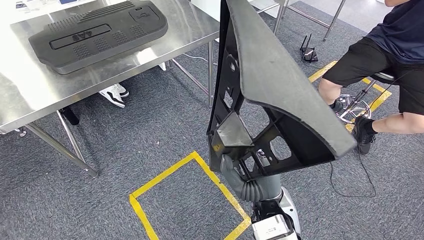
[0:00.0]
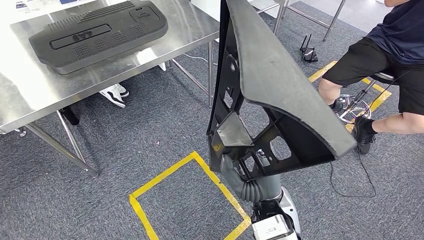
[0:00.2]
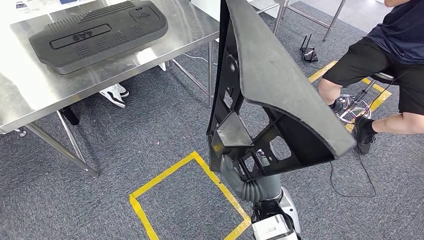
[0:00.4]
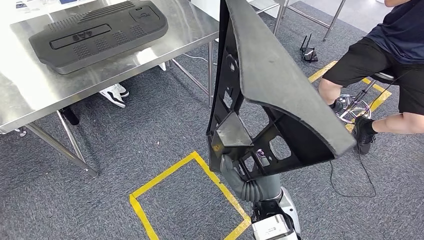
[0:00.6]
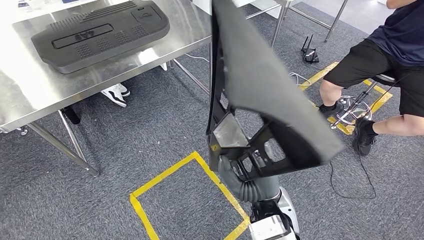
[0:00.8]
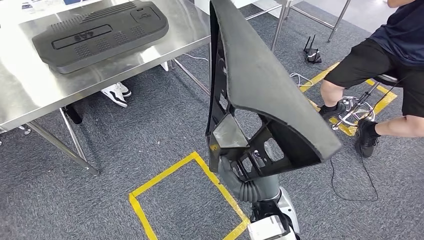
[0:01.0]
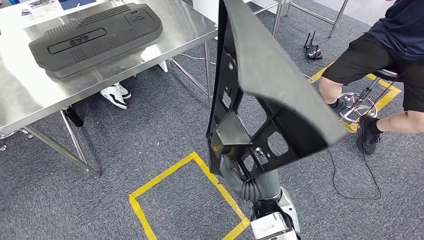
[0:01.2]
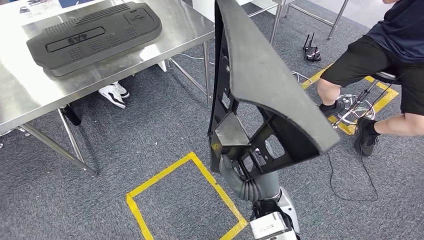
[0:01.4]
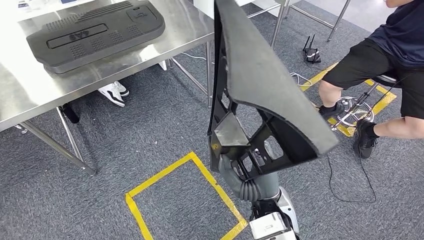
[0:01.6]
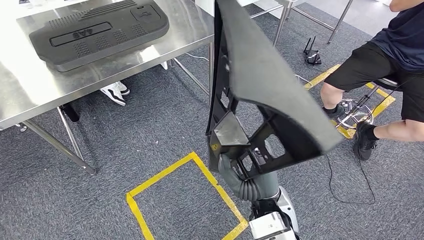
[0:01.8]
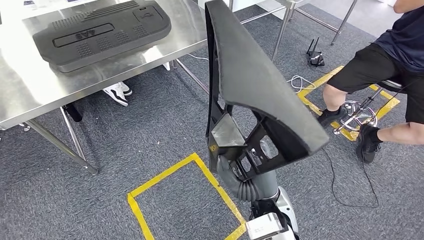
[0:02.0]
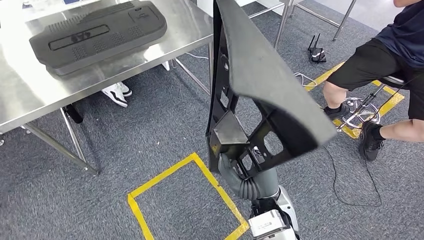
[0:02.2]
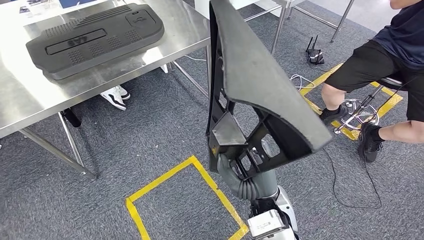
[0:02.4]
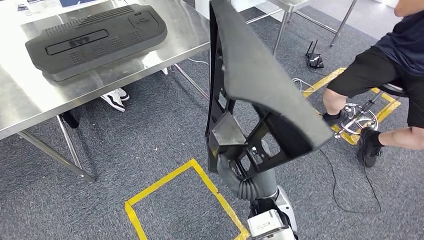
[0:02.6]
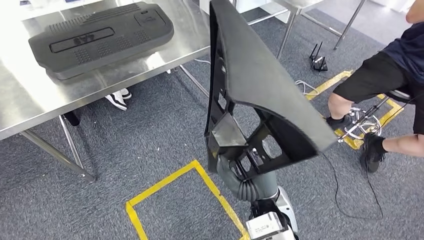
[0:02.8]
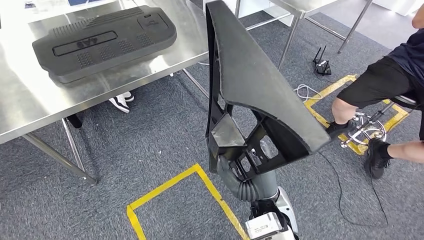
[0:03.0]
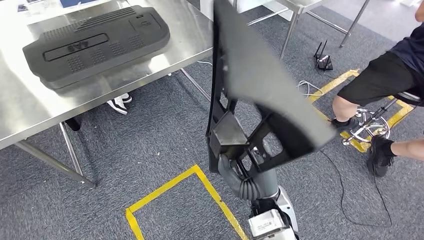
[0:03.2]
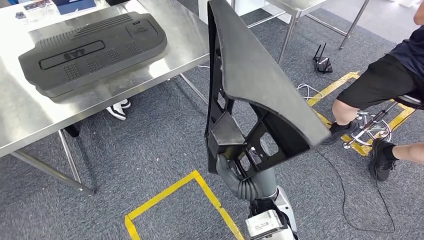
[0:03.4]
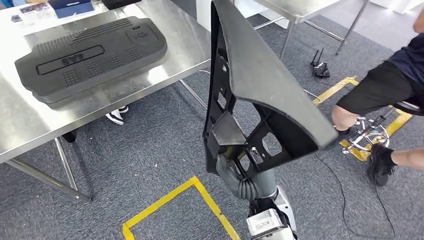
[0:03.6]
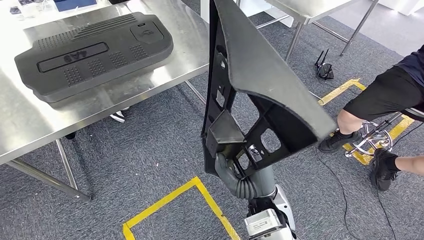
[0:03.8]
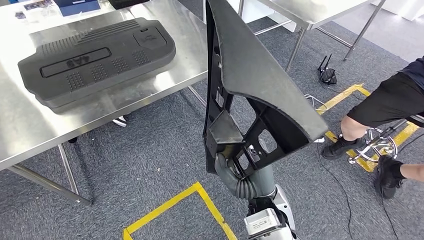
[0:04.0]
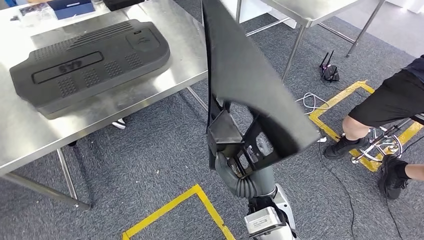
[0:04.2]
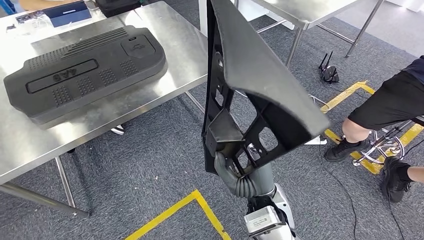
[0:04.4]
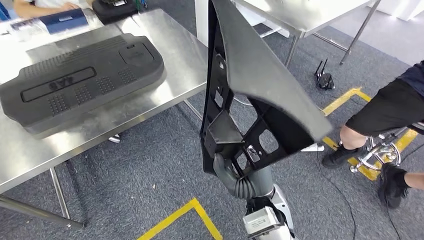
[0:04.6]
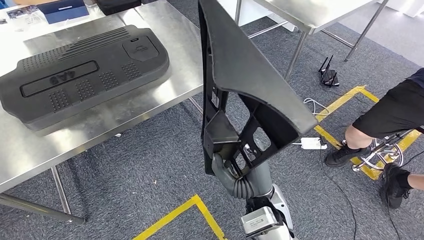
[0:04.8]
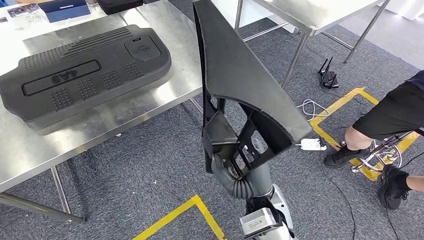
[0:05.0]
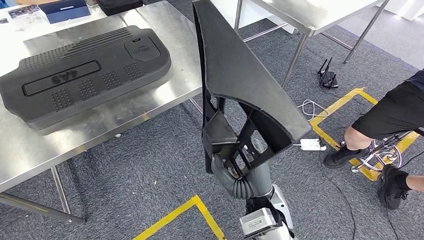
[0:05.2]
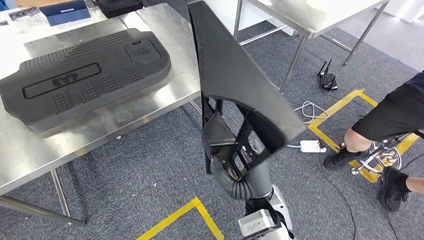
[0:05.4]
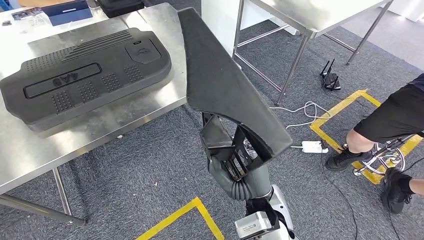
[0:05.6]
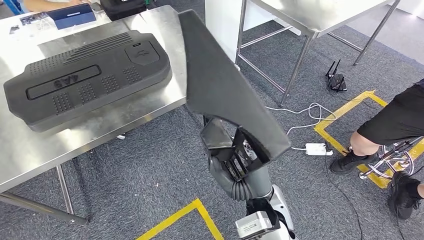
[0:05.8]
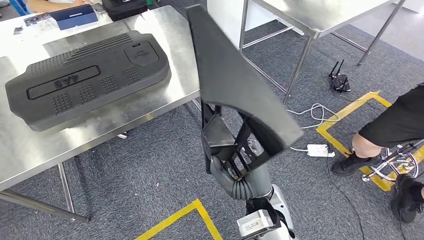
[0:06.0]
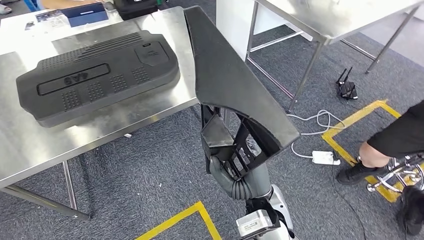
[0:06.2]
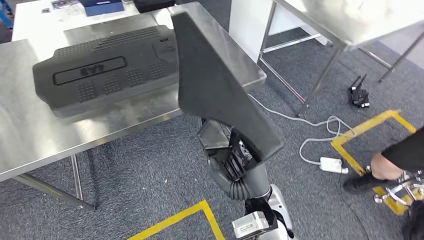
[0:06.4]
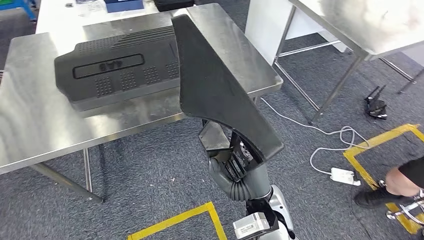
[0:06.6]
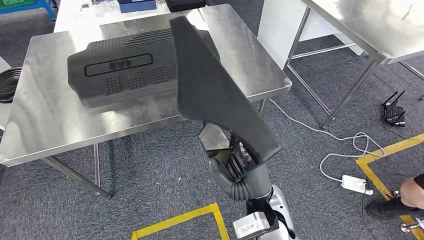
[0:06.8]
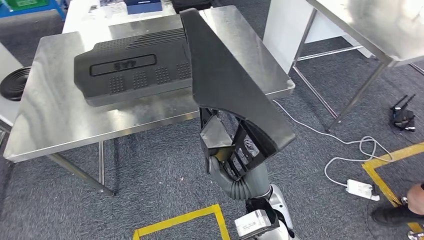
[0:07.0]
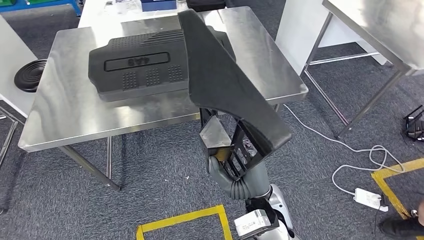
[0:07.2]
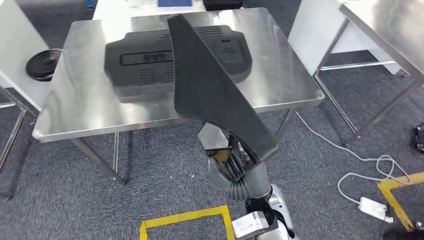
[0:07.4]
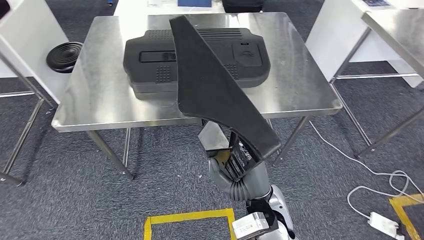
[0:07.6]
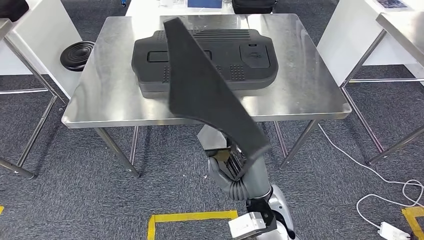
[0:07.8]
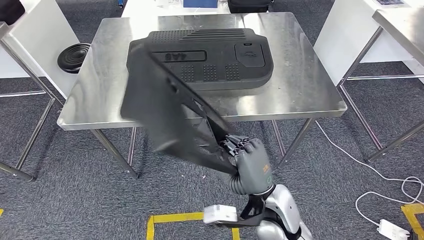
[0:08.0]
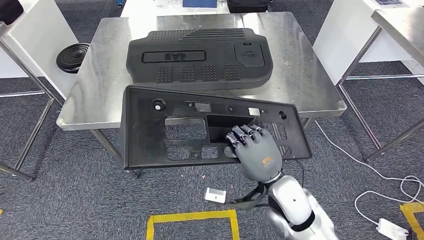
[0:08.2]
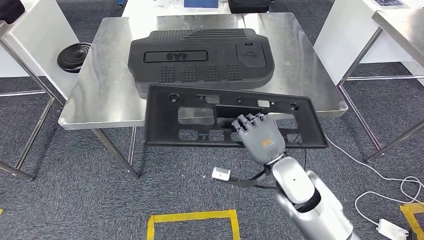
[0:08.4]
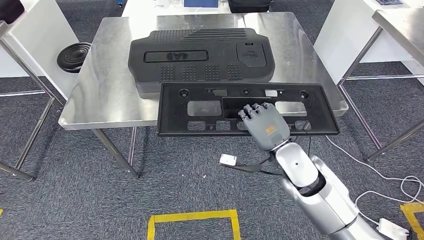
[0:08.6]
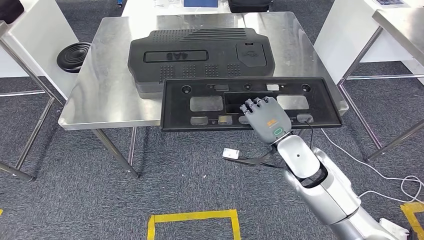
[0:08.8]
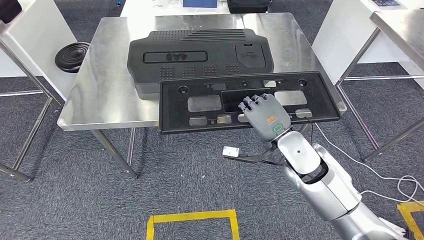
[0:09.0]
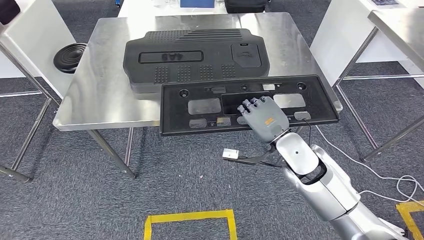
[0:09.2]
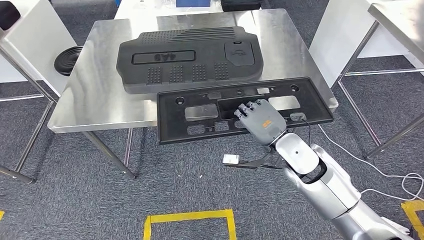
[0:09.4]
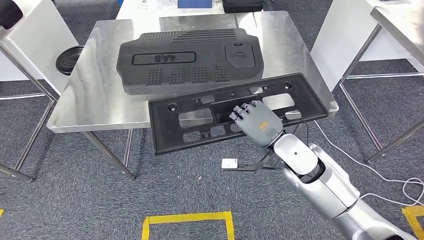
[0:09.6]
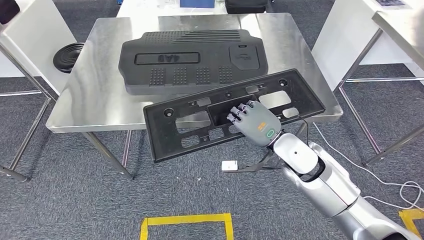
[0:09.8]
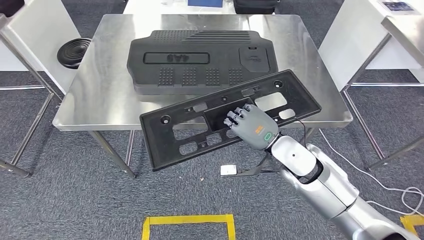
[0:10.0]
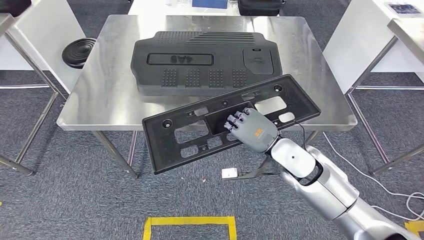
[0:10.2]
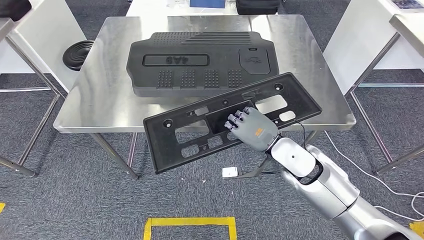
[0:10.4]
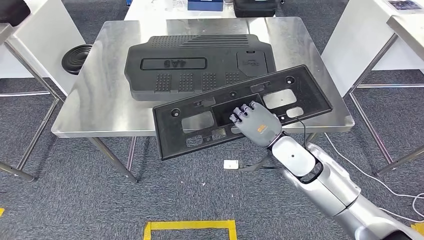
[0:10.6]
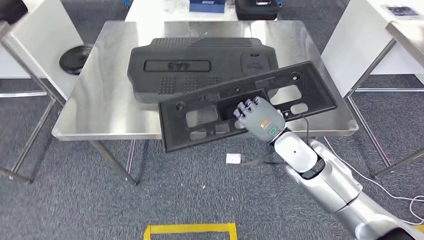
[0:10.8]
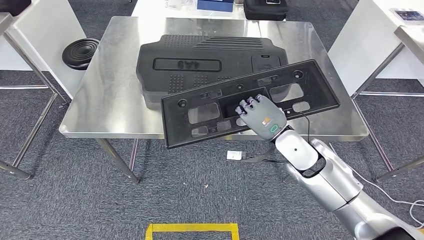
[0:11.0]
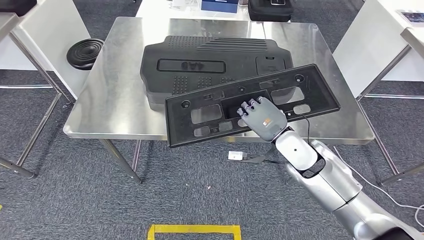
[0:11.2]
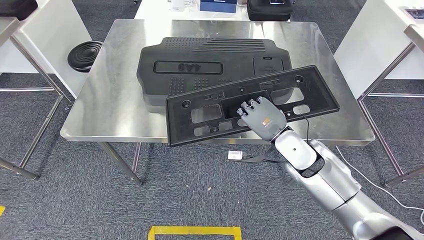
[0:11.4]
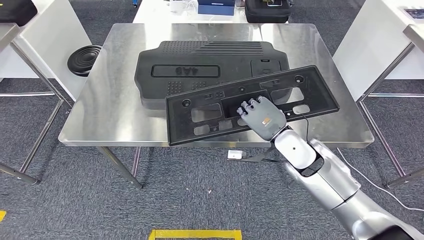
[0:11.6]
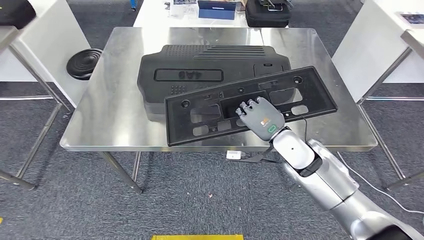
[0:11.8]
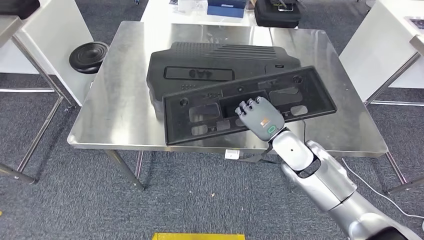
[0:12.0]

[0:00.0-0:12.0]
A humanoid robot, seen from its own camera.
0:00.0 to 0:01.6: Both hands stay put.

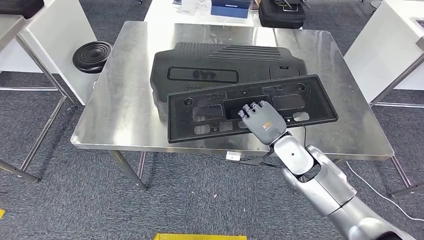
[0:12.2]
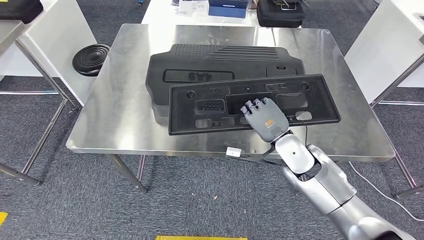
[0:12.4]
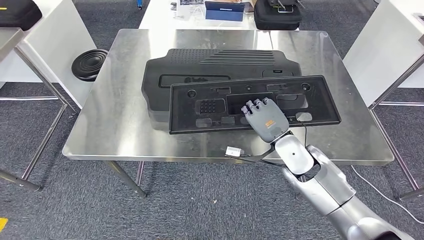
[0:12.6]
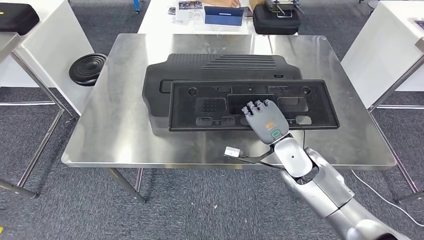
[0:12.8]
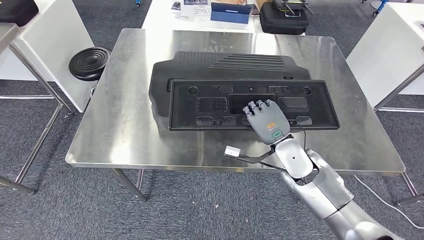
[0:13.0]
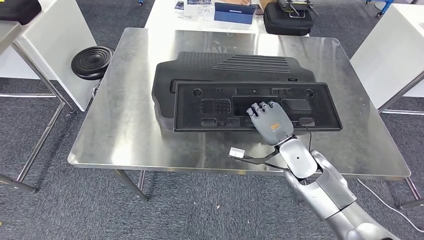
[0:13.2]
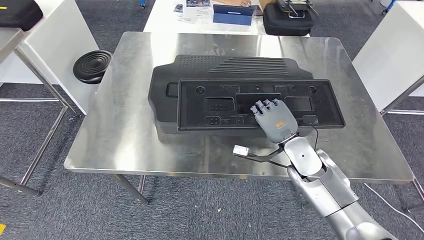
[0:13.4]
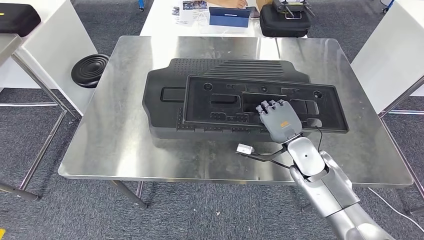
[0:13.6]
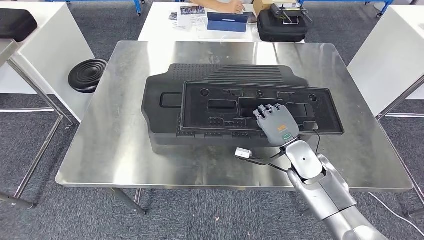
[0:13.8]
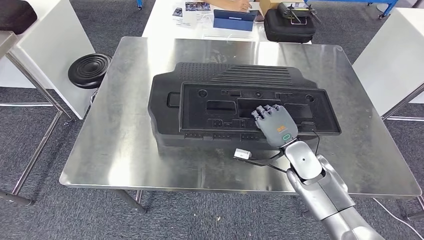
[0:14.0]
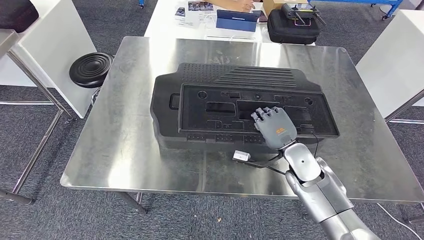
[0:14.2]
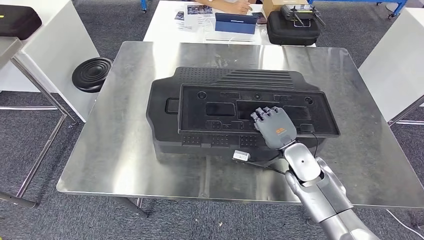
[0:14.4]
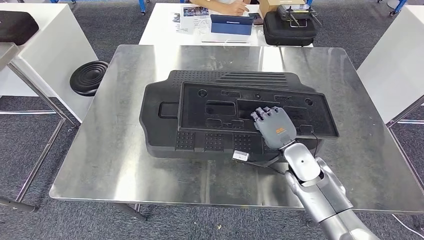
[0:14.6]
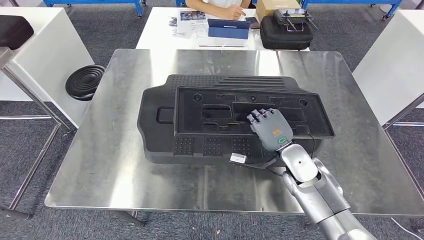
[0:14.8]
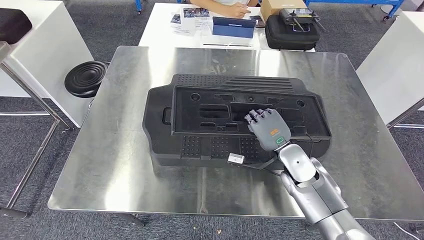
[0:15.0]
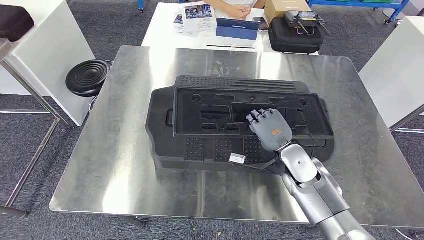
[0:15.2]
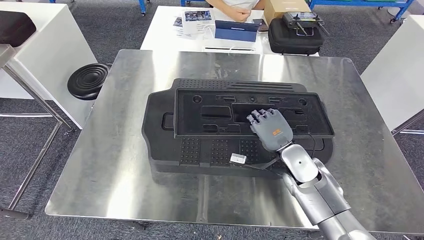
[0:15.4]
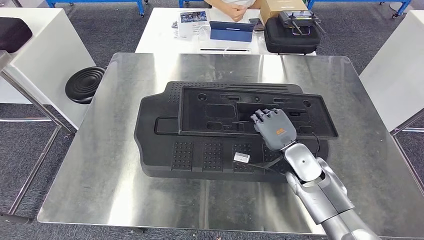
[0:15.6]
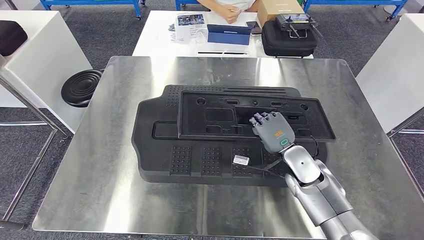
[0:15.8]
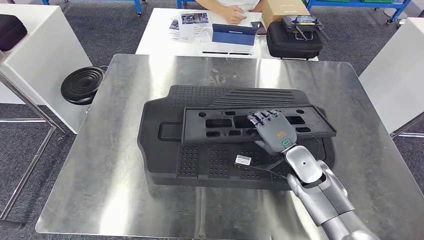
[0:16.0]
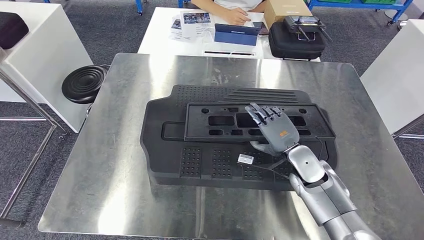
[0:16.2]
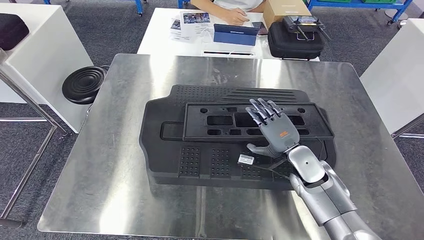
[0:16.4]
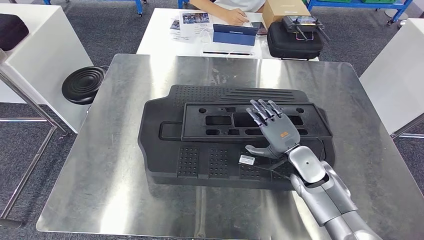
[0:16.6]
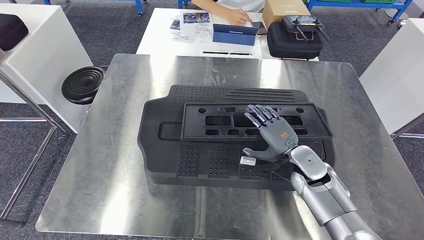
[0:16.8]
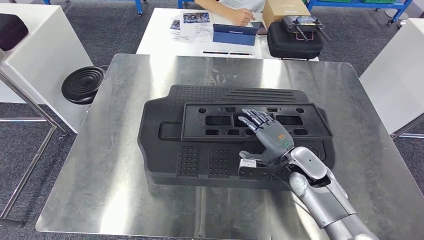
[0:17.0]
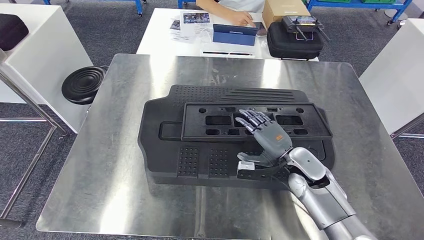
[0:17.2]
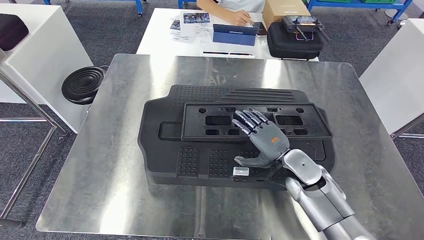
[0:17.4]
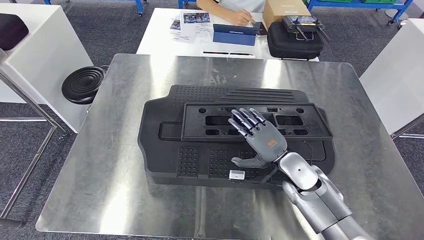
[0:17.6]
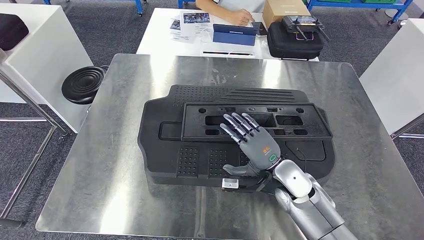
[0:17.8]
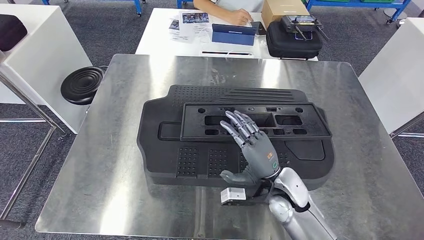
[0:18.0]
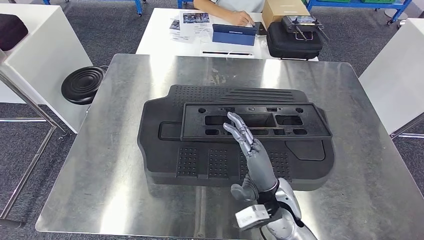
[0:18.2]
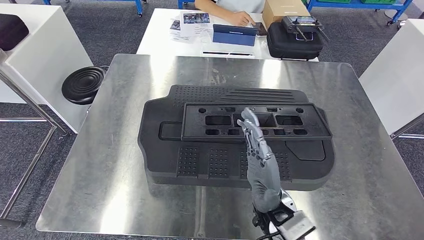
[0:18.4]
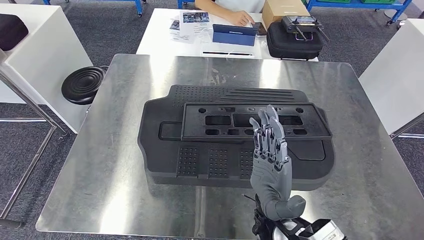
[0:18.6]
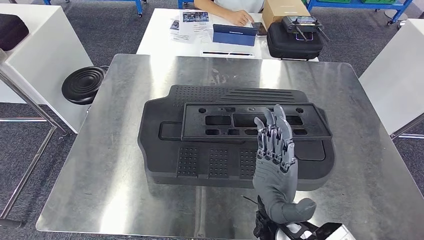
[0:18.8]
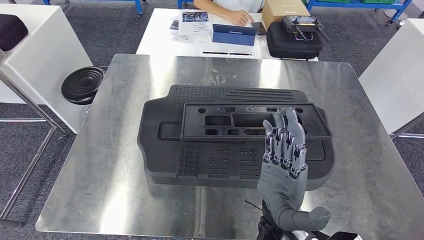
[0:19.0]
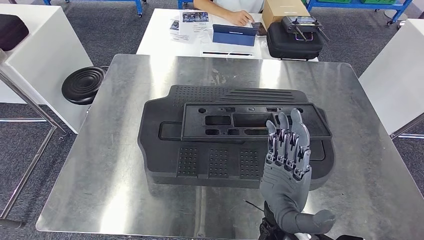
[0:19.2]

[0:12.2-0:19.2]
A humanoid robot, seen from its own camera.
Step, 0:12.2 to 0:16.4: Insert the large material into the corresponding slot on the workbench.
0:16.4 to 0:17.8: The right hand moves about 5 cm.
0:17.8 to 0:19.2: The right hand is displaced backward, upward and to the left by some 15 cm.
